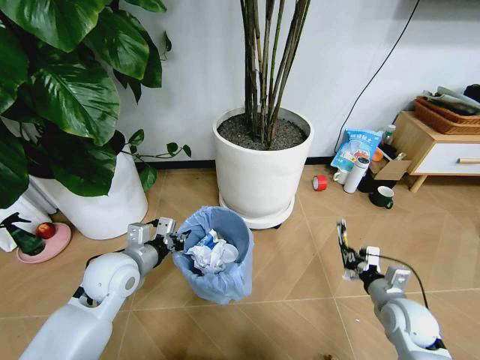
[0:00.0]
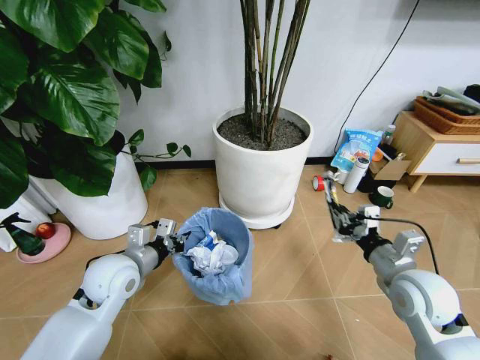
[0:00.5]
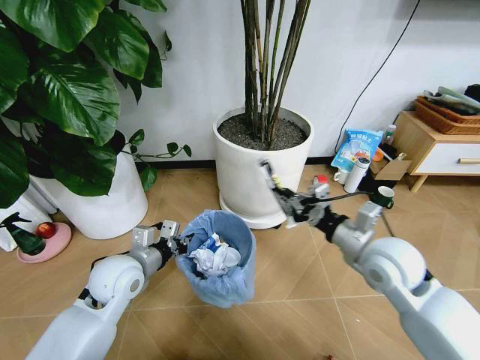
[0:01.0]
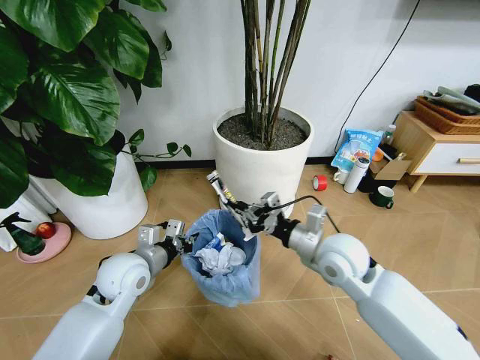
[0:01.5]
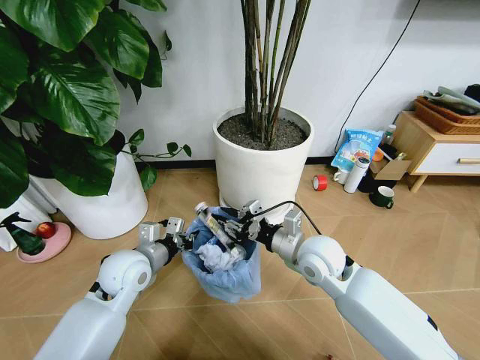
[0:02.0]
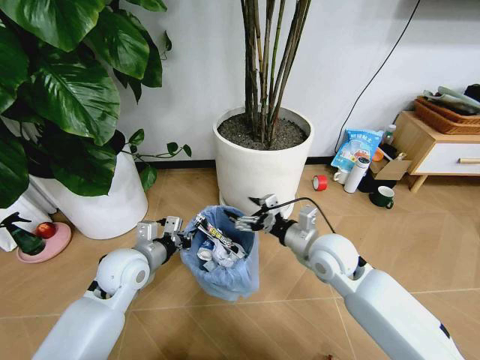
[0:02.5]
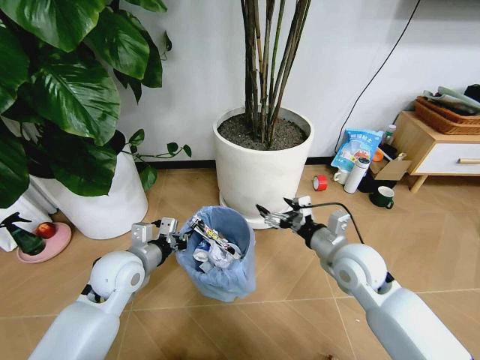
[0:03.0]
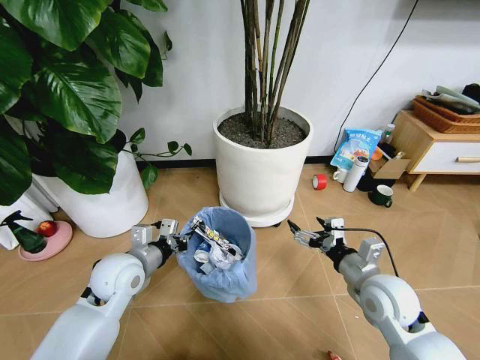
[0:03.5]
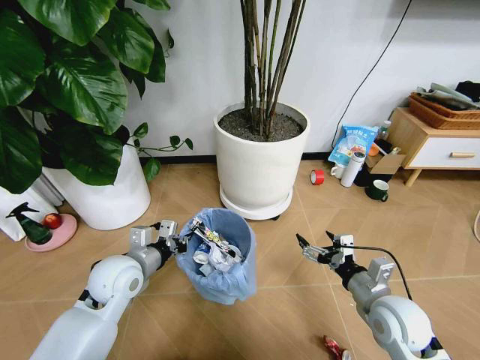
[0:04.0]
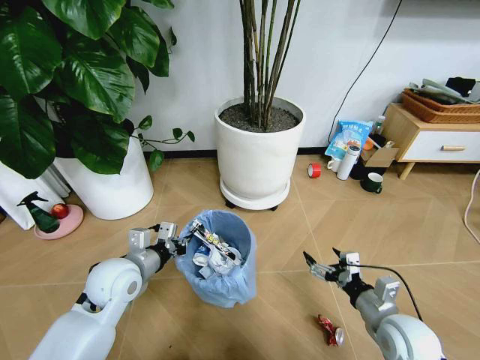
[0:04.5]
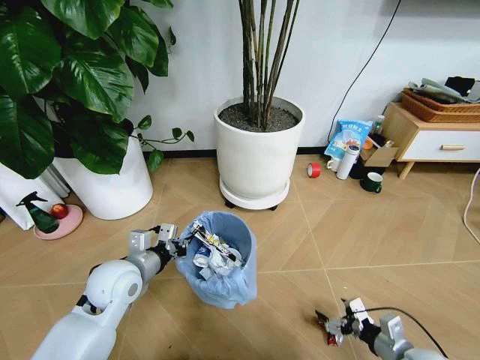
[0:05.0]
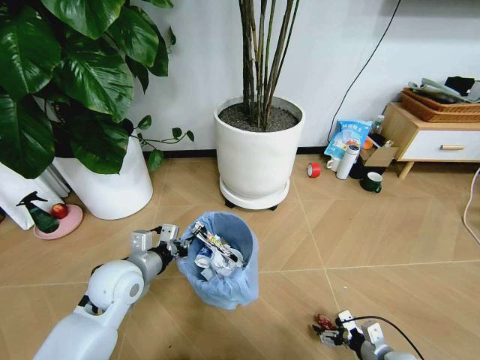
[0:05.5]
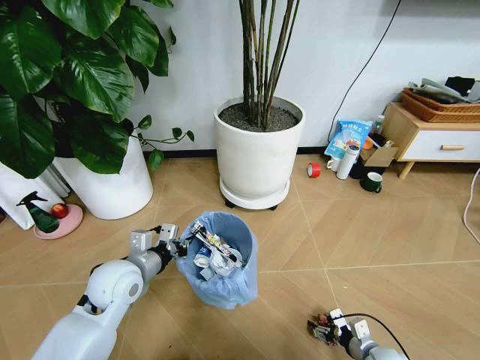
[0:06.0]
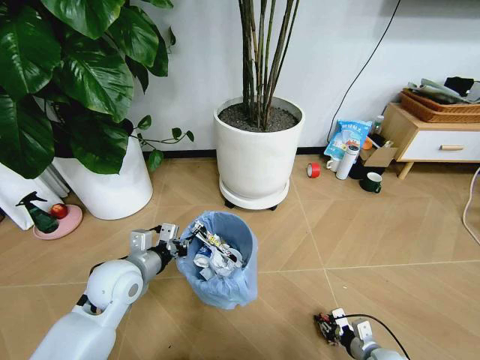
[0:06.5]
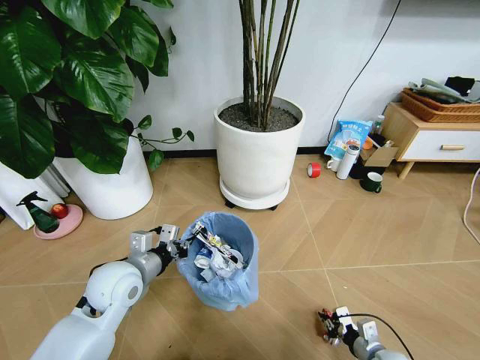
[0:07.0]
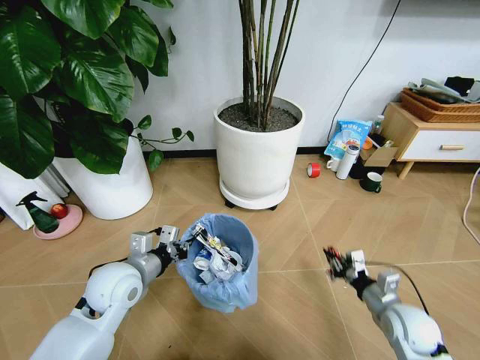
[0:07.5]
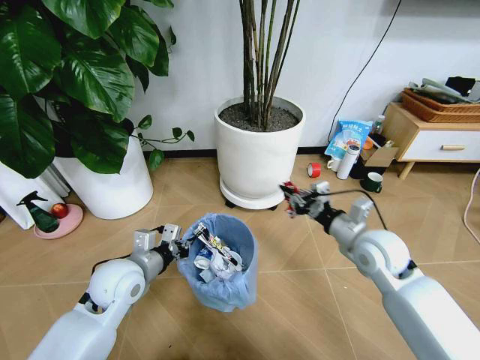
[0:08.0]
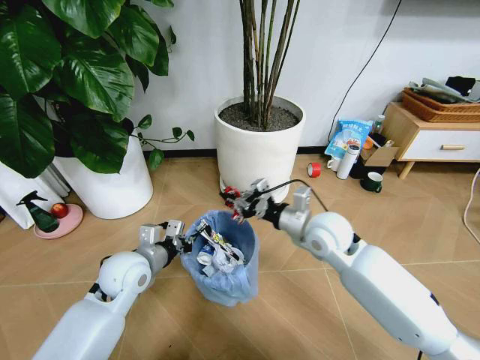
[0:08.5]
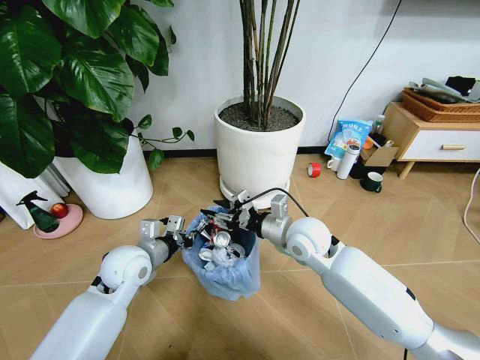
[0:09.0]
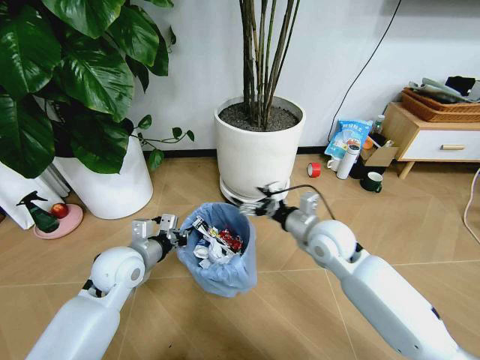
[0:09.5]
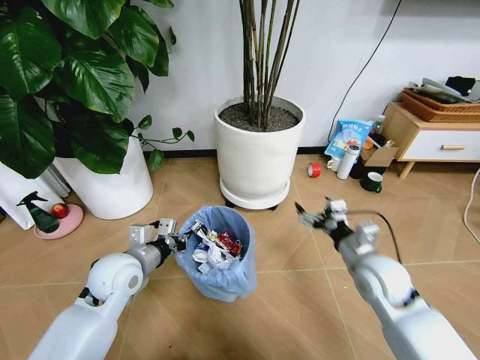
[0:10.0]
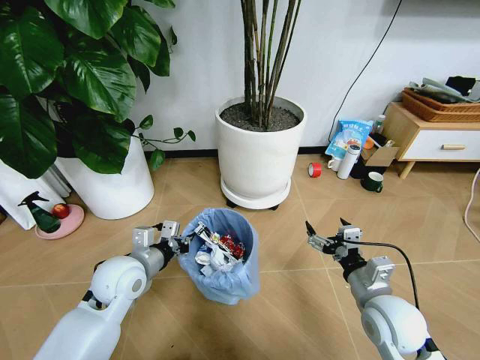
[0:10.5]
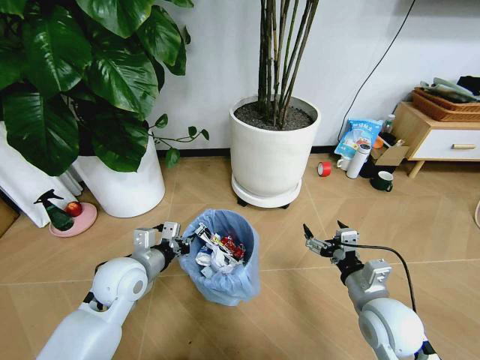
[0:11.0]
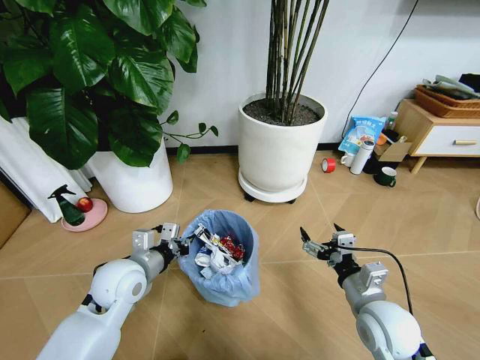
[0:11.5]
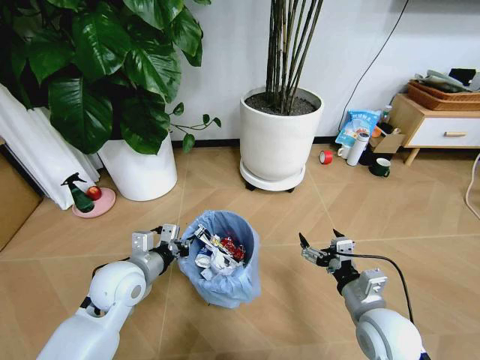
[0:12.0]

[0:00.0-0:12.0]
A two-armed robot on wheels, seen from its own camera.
Task of the whole recording: Pick up the trash bin and place the garbage on the floor into it.
0:00.0 to 0:02.0: The right gripper moves to the left, upward and forward, roughly 25 cm.
0:02.0 to 0:04.0: The right gripper heads to the right and backward, covering approximately 15 cm, and opens up.
0:04.0 to 0:06.0: The right gripper travels downward by some 20 cm.
0:06.0 to 0:08.0: The right gripper is displaced upward and forward by some 35 cm, and closes.
0:08.0 to 0:10.0: The right gripper reaches approximately 15 cm to the left, then returns, and opens its fingers.
0:10.0 to 0:12.0: The right gripper moves backward, about 10 cm.

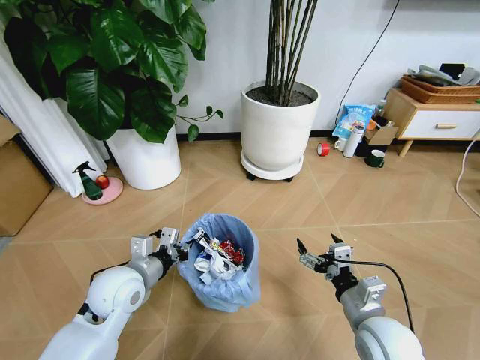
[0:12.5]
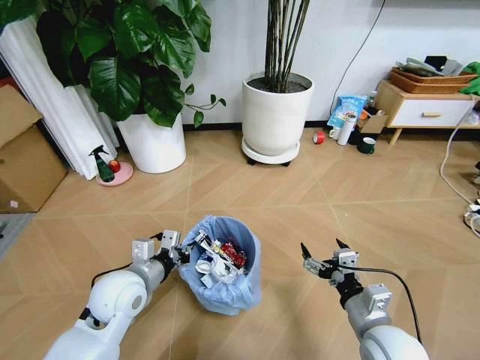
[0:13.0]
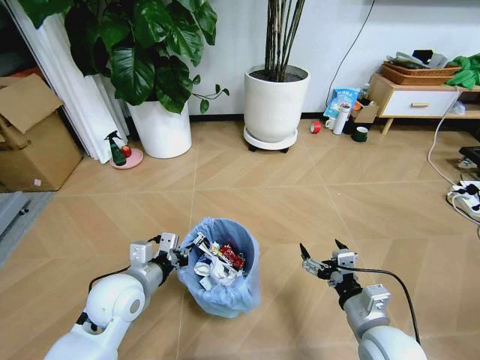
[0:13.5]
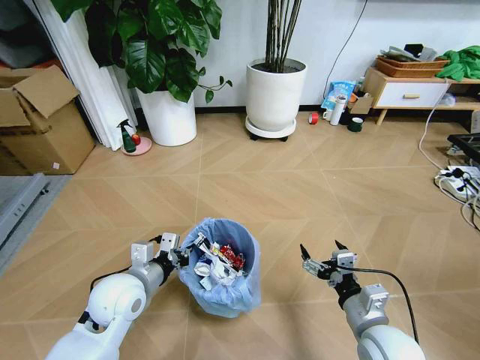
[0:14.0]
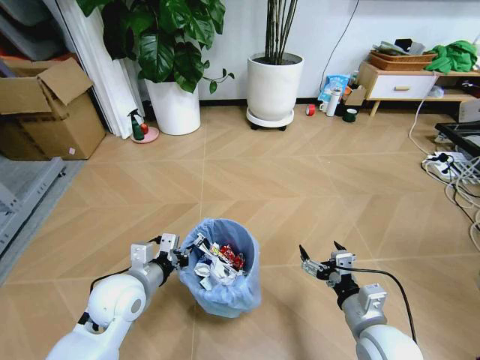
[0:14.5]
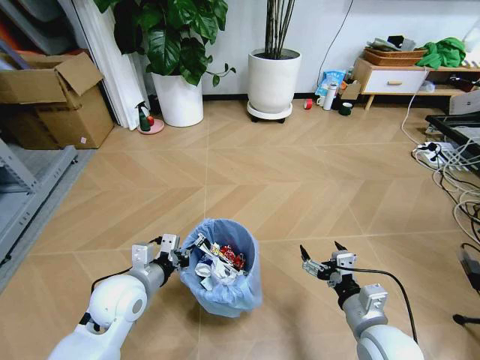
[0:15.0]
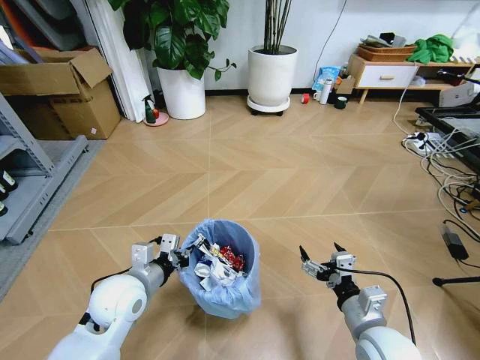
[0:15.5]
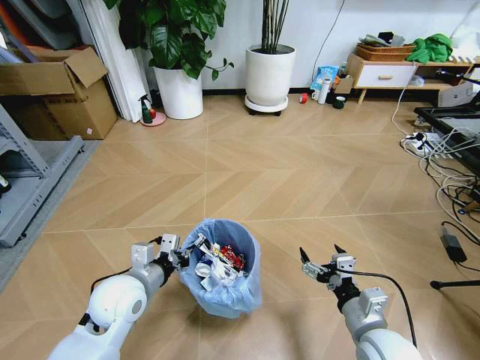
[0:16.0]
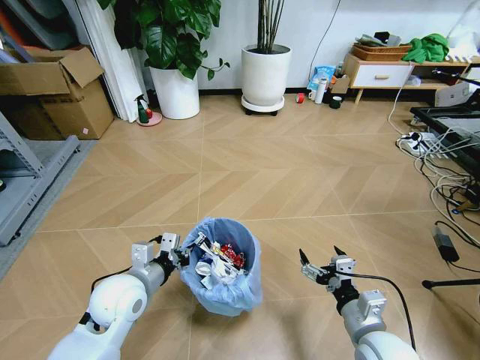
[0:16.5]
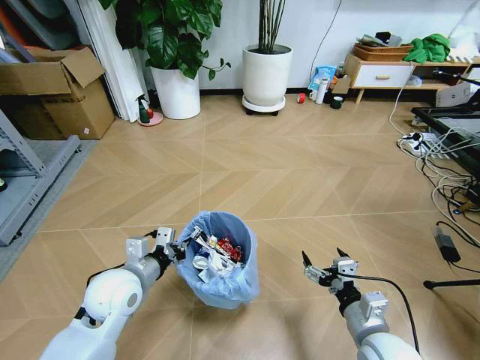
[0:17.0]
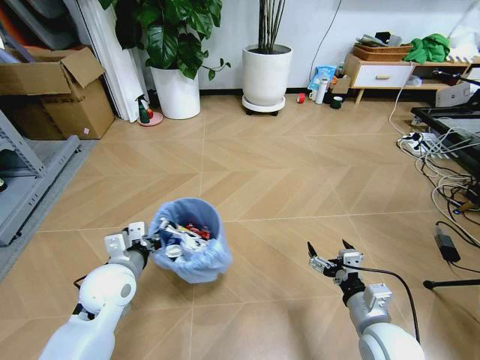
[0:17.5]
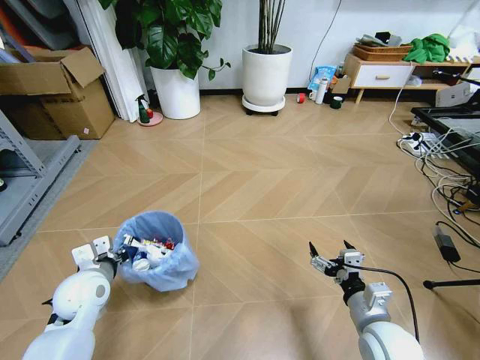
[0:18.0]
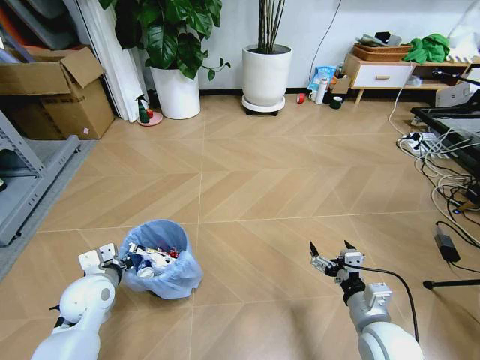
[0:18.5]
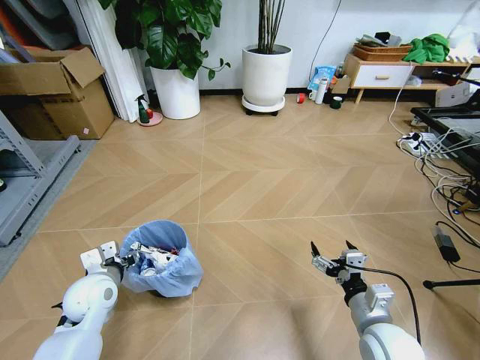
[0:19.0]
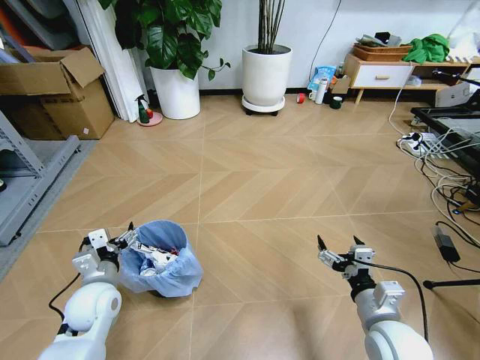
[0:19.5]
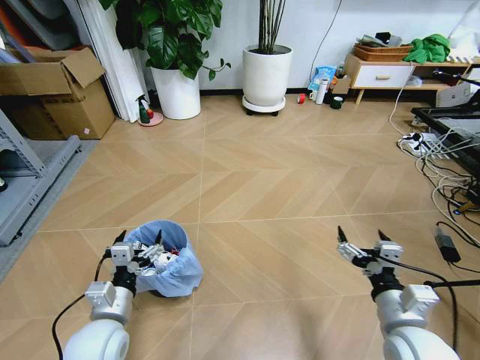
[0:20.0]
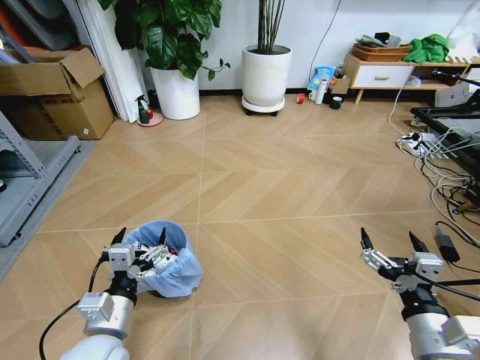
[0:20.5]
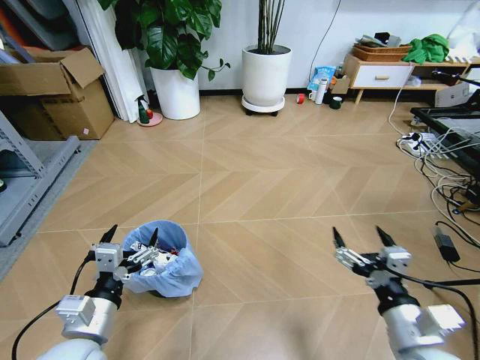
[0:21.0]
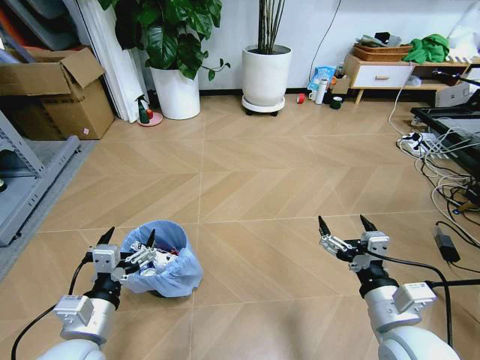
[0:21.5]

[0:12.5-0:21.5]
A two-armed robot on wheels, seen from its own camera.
Task of the whole recording: Pick up the trash bin and place the garbage on the floor into it.
0:17.0 to 0:19.5: The left gripper is displaced to the left and downward by approximately 10 cm, and opens up.
0:19.5 to 0:21.5: The left gripper shifts approximately 15 cm backward and upward. The right gripper moves upward, approximately 10 cm.
